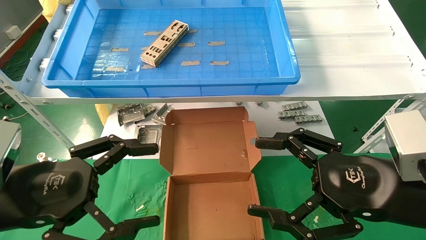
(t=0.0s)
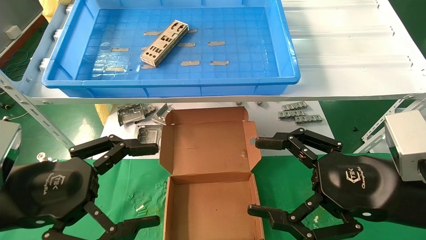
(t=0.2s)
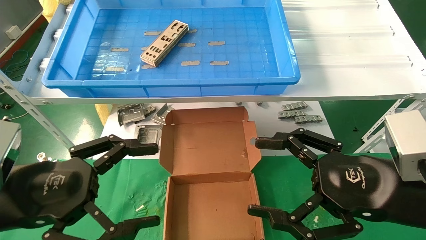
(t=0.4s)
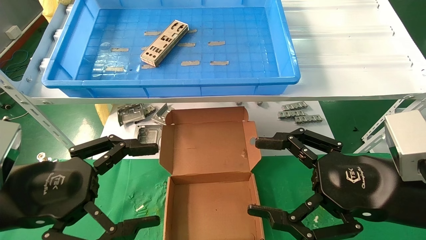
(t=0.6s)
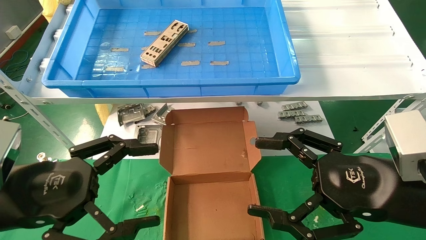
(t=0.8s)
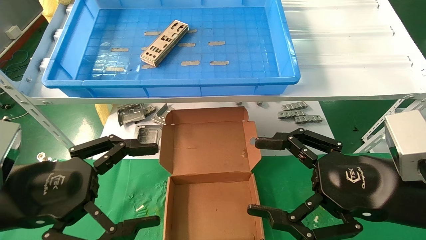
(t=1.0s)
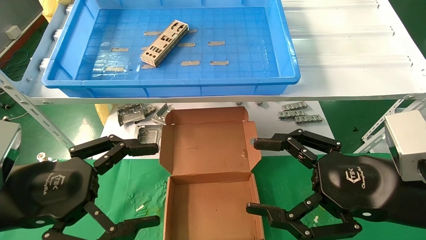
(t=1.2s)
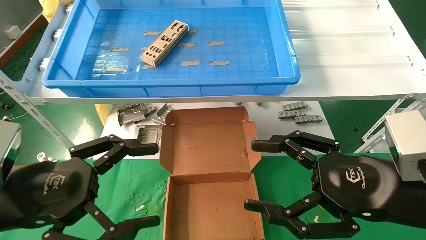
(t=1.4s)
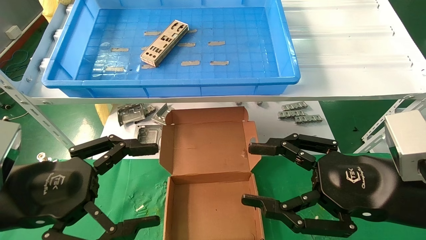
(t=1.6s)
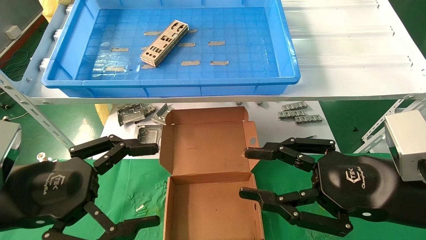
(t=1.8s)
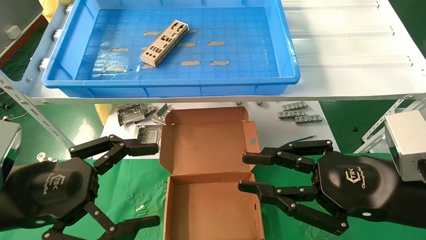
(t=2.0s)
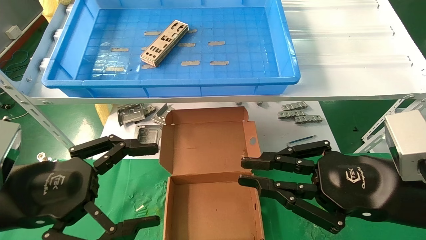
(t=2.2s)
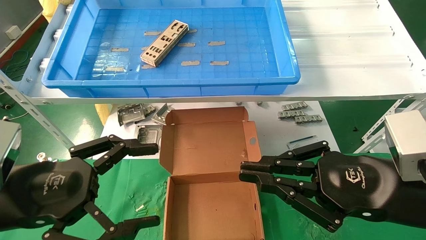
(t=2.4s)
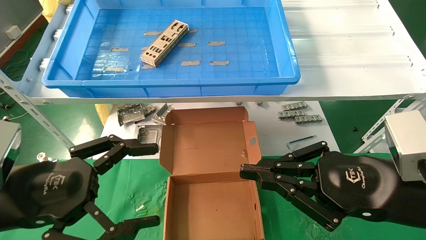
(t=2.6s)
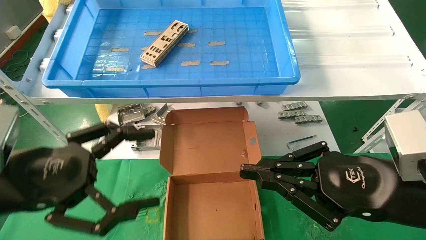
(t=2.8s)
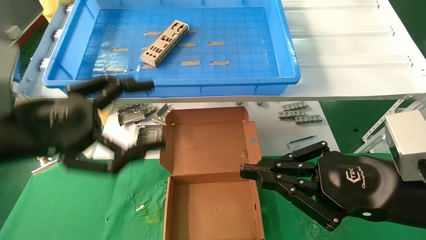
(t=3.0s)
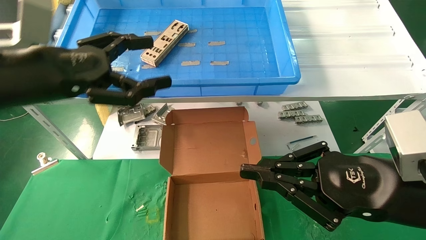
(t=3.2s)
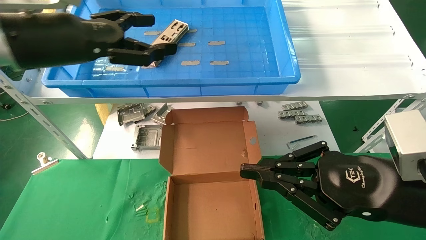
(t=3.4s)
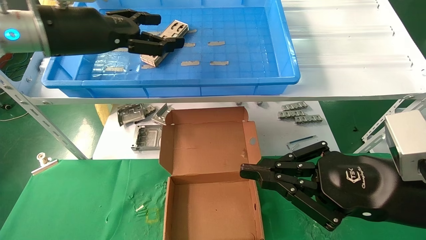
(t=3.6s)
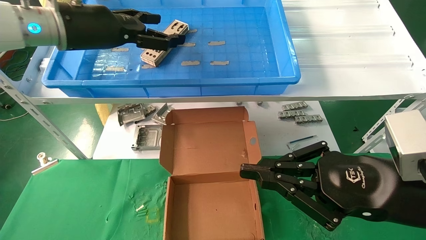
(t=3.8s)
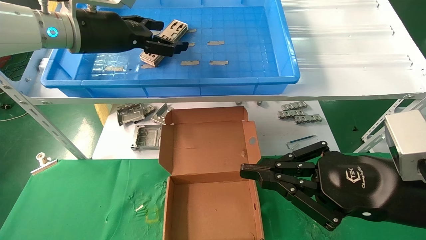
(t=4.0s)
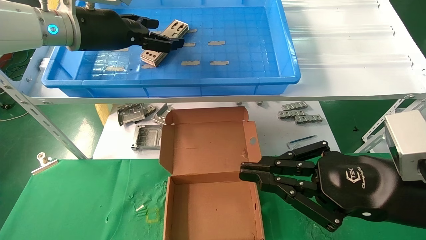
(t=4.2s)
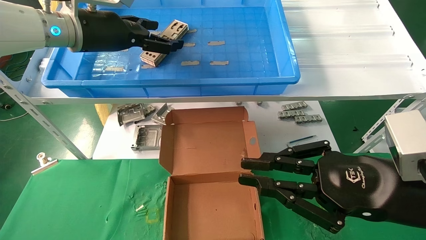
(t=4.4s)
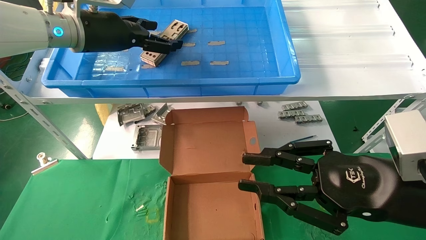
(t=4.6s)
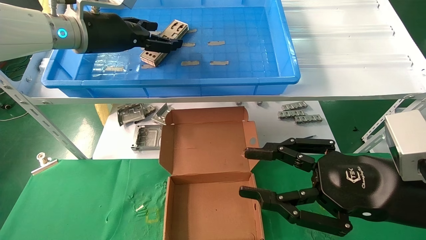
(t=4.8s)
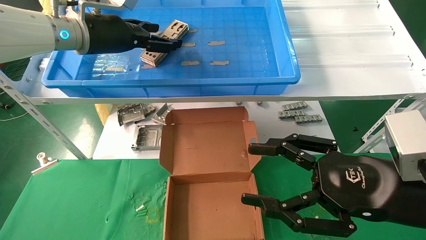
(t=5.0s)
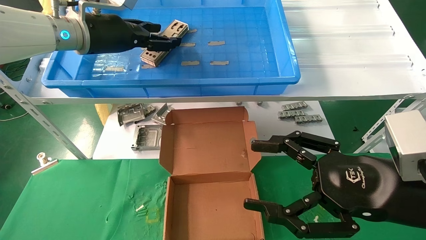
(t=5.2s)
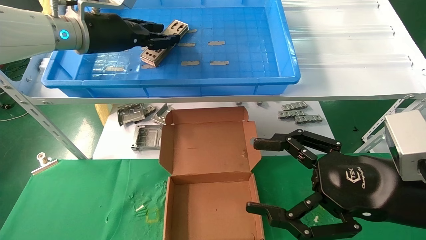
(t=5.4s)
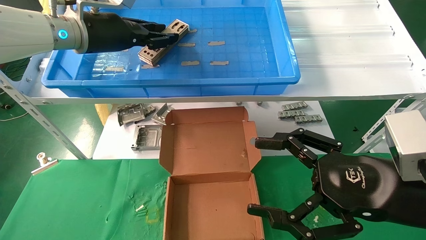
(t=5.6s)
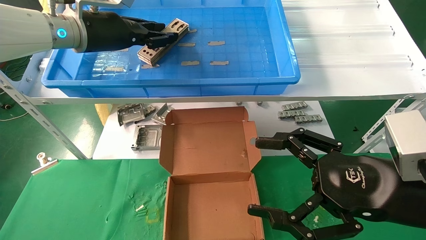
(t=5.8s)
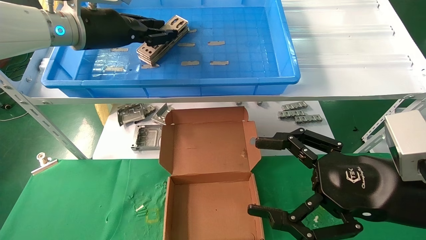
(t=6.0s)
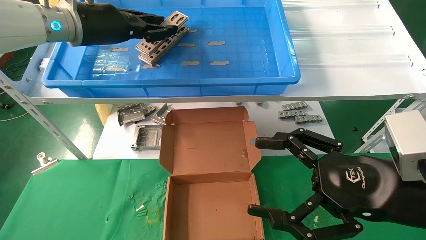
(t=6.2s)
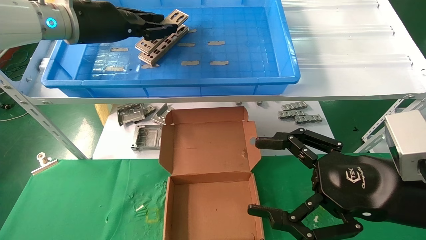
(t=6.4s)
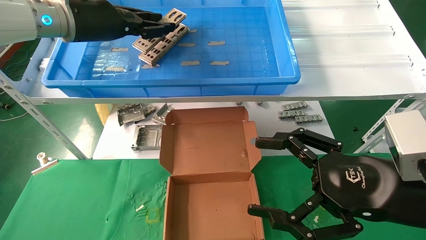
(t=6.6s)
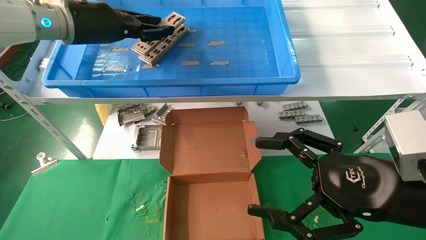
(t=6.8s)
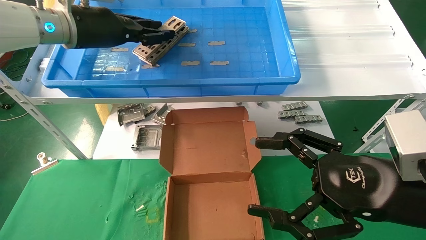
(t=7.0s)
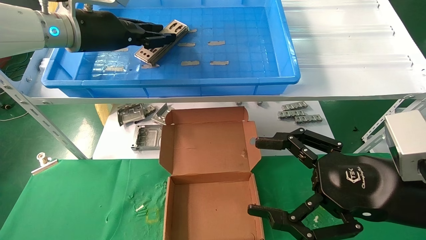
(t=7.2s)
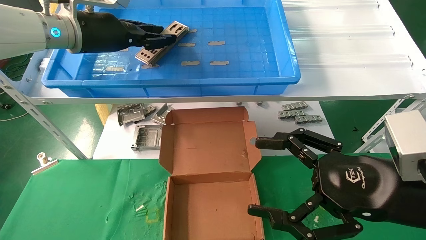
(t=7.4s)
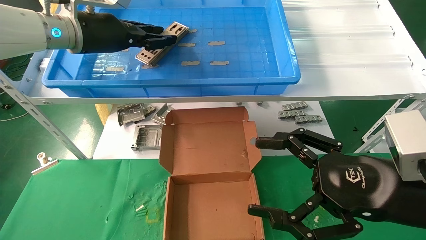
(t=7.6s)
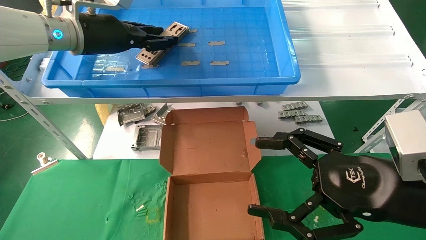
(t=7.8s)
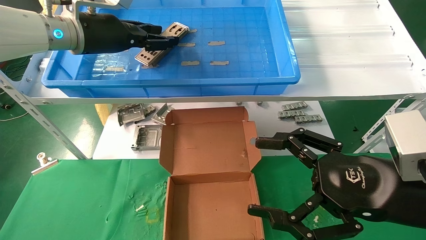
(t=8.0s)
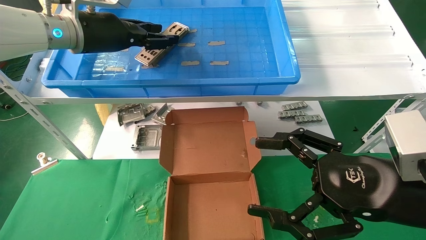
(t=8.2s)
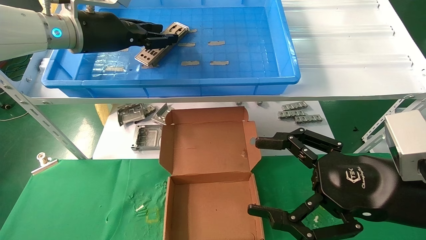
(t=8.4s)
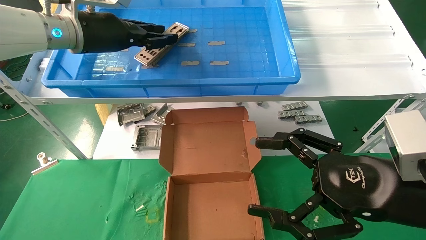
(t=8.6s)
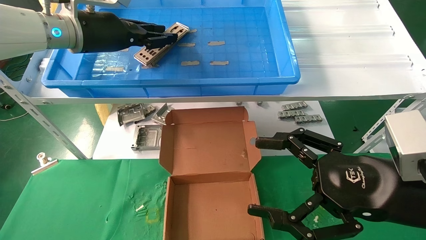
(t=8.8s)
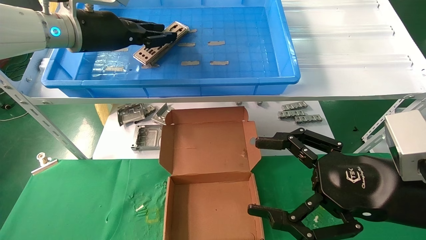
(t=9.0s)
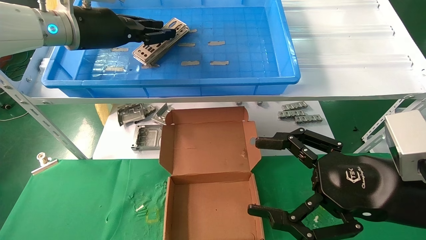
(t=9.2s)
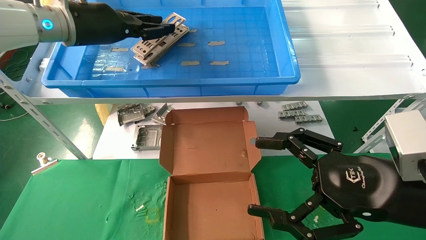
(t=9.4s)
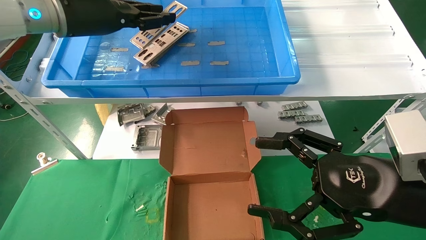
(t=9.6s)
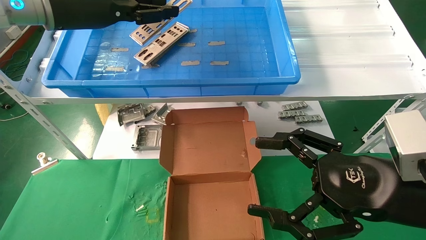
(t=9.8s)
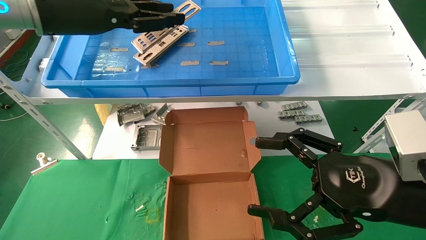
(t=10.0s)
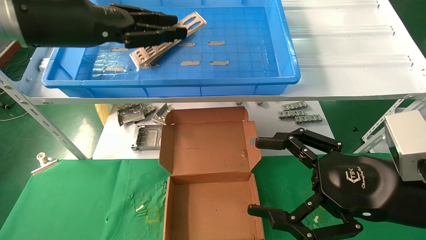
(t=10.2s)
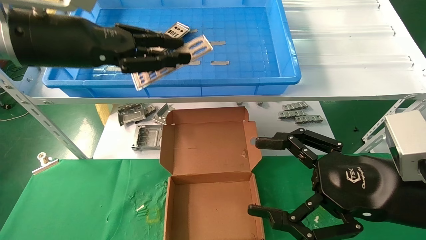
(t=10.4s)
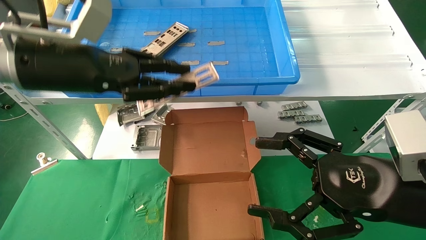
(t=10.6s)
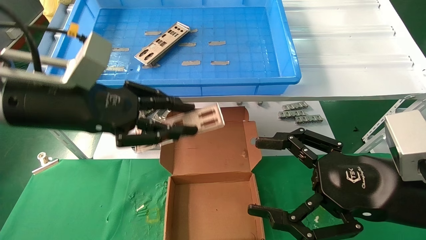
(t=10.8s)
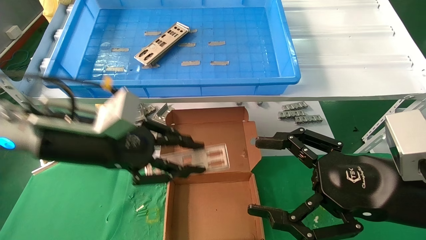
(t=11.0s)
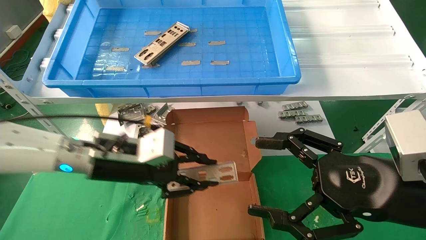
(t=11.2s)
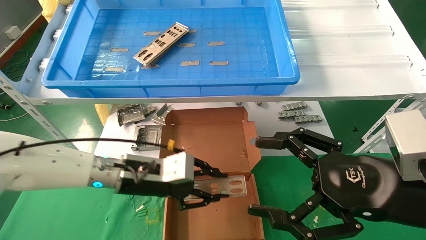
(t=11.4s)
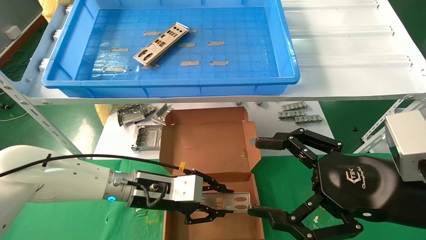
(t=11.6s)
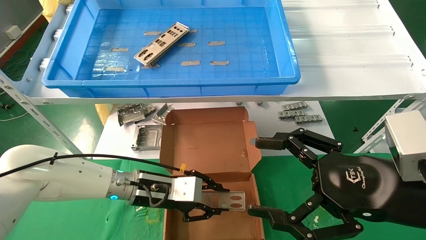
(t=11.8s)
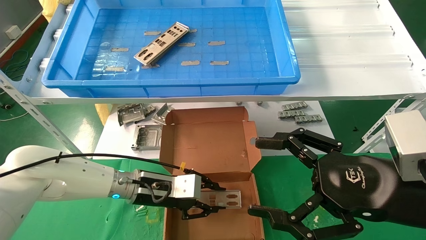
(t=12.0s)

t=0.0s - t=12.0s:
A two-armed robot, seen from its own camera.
Task of the whole recording: pick up the parts on the tray and put them in the cardboard box.
Step, t=3.2s - t=8.8s: Pick up the IO bracket from the container box.
t=0.0s - t=1.6s: Both grippers stay about where they are.
t=1.6s - t=3.0s: The right gripper closes its fingers. Meanwhile the left gripper moves upward, roughly 10 cm.
t=3.0s - t=4.4s: The left gripper goes about 20 cm forward and upward.
t=4.4s - t=6.0s: The left gripper closes; the right gripper opens its fingers.
t=6.0s - t=9.0s: Both grippers stay put.
t=9.0s - t=10.4s: The left gripper shifts about 10 cm backward.
t=10.4s - t=12.0s: The left gripper heads downward, covering about 30 cm.

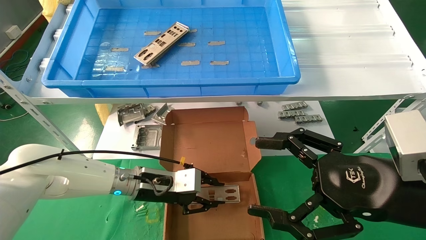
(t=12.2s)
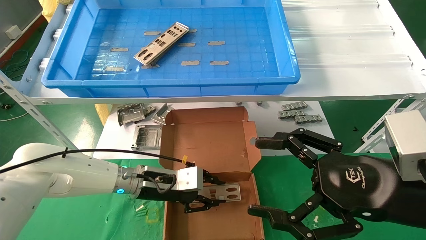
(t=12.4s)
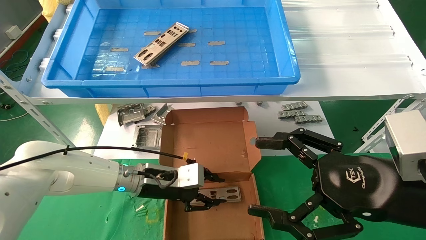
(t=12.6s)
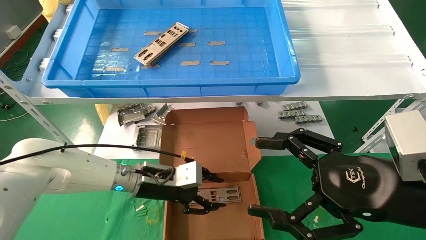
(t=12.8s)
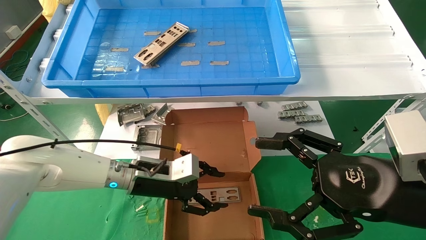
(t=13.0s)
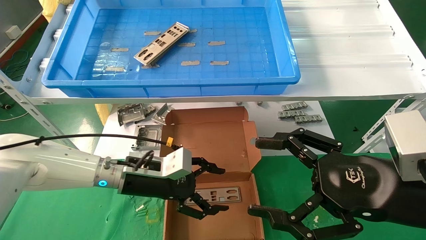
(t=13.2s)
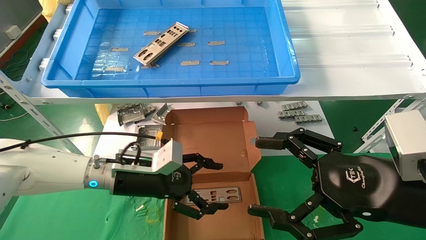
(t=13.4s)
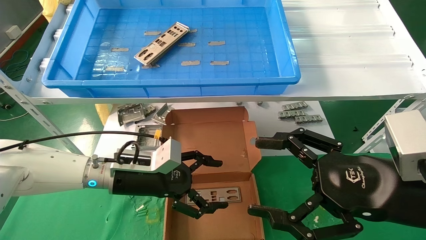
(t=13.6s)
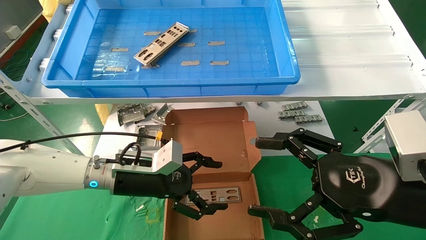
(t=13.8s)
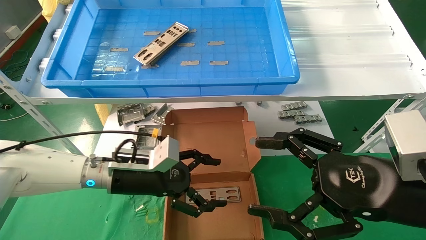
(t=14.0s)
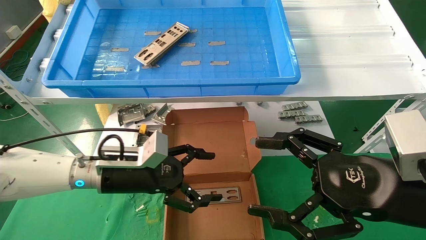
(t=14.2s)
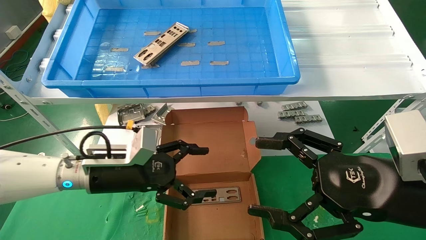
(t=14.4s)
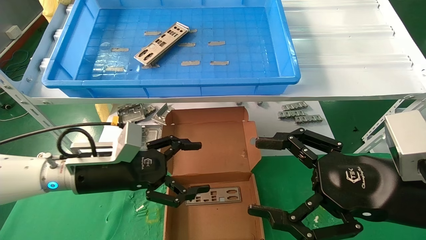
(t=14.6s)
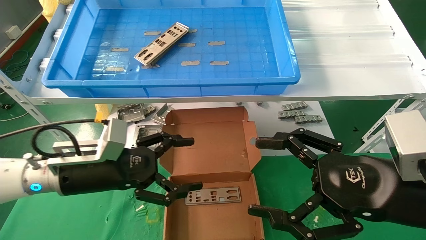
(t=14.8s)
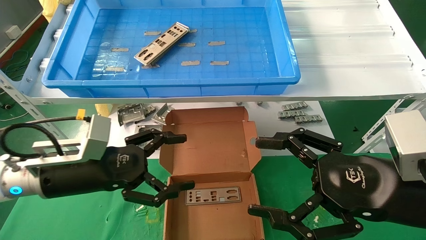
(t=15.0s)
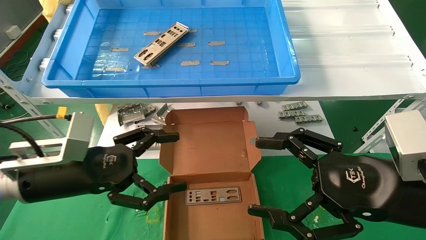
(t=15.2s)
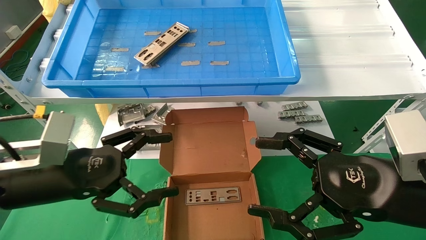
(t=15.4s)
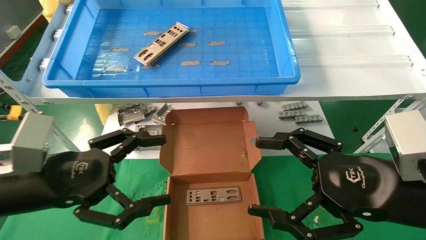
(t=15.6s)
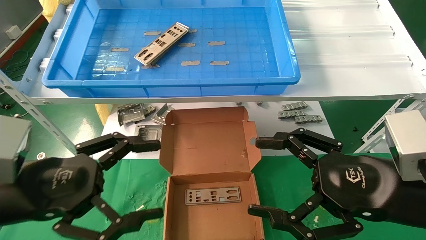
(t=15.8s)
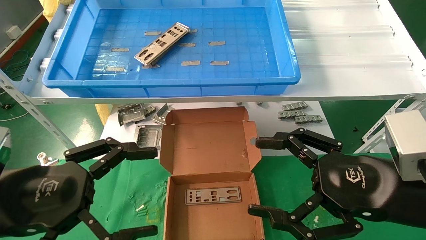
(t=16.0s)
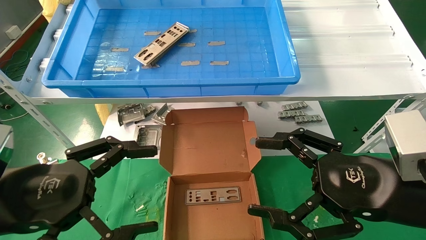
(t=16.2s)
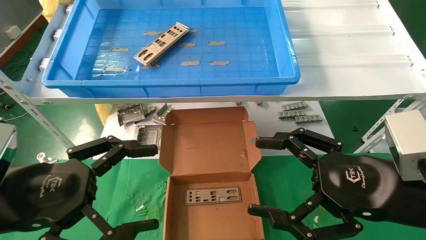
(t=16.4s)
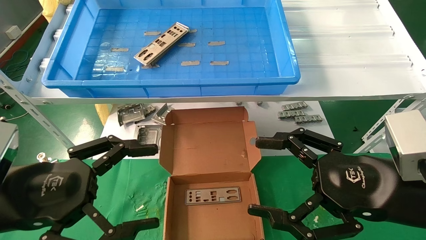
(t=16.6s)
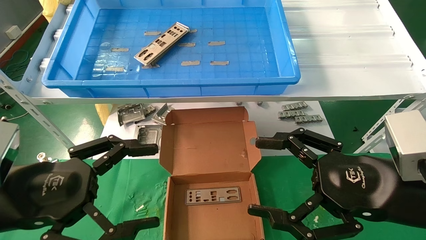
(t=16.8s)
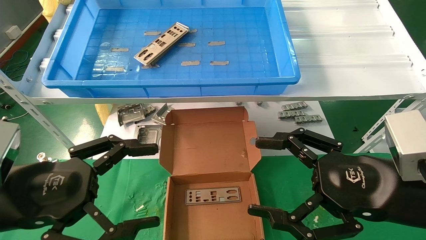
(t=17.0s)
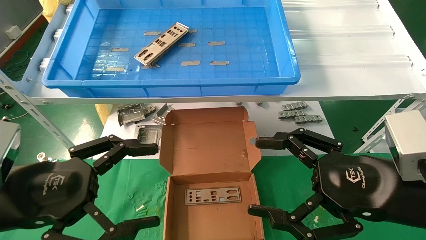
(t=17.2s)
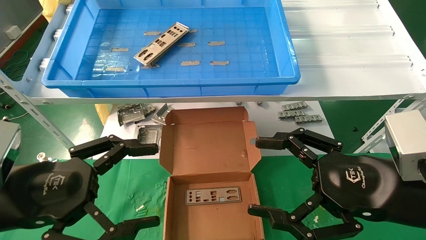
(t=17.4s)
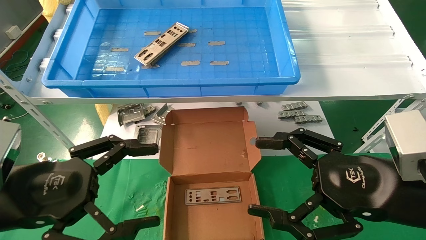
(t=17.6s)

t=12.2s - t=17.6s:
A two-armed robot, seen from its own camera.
Task of the whole recording: pick up the parts on the tray and put them in the cardboard box.
t=12.2s - t=13.6s: The left gripper changes place by approximately 5 cm, and opens its fingers.
t=13.6s - t=15.0s: The left gripper travels to the left and backward by approximately 10 cm.
t=15.0s - t=16.2s: The left gripper moves backward, about 10 cm.
t=16.2s - t=17.6s: Neither gripper changes place.
